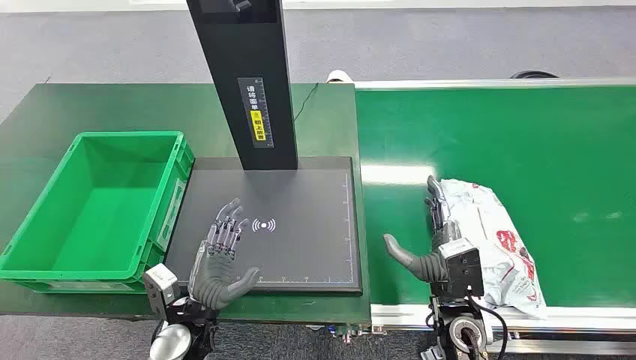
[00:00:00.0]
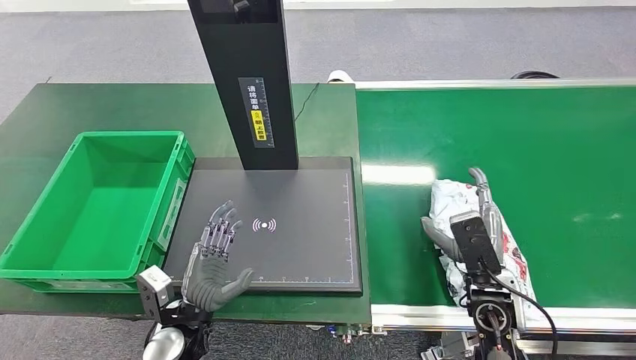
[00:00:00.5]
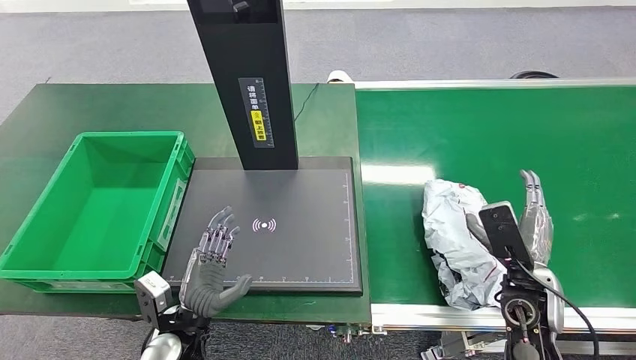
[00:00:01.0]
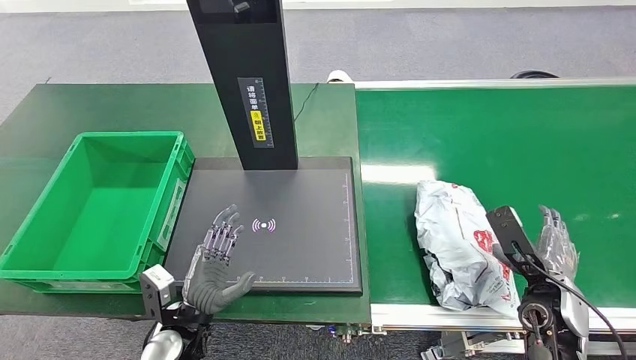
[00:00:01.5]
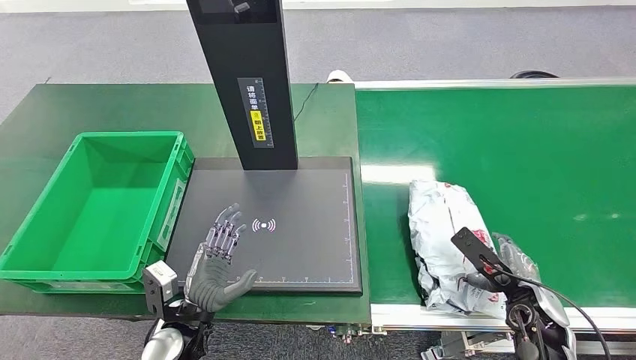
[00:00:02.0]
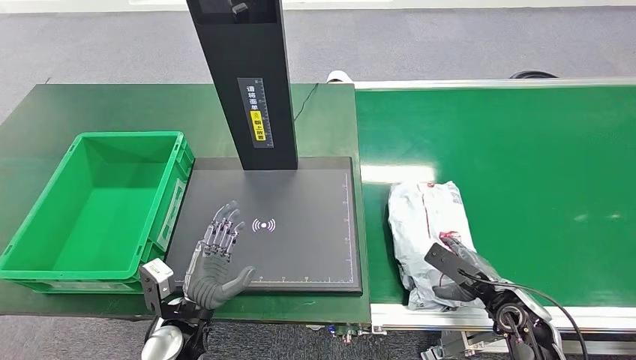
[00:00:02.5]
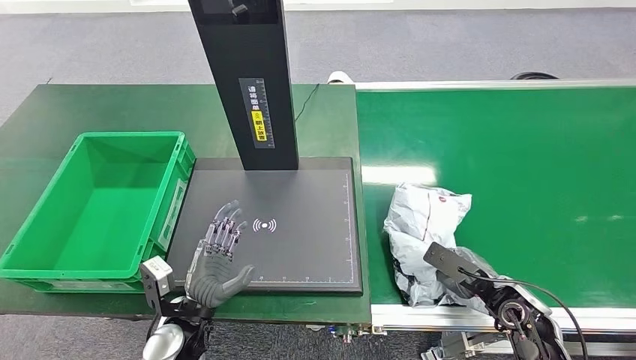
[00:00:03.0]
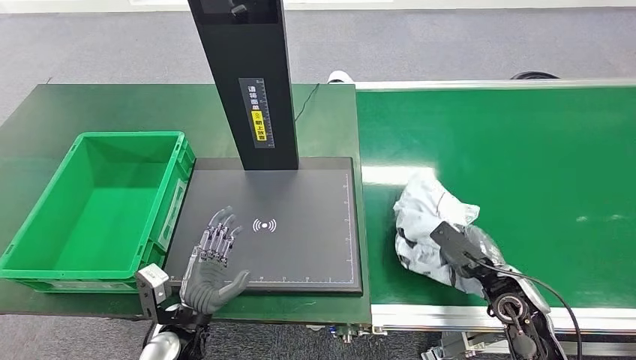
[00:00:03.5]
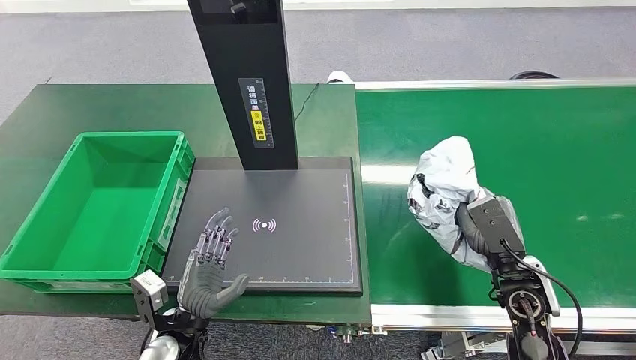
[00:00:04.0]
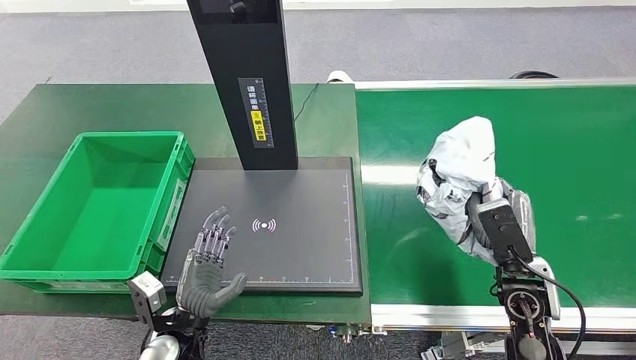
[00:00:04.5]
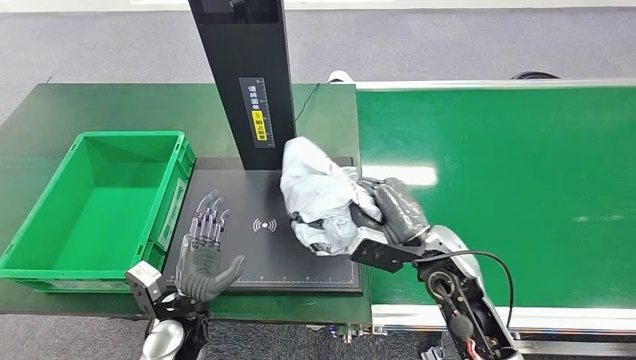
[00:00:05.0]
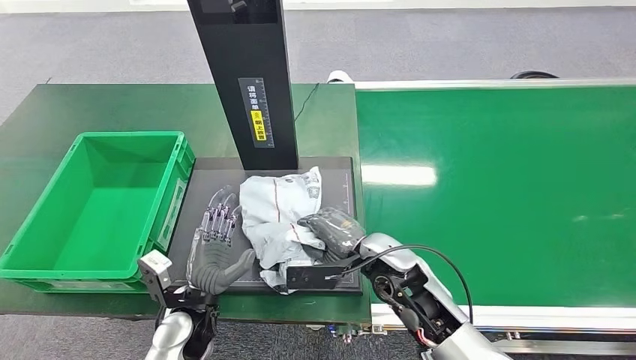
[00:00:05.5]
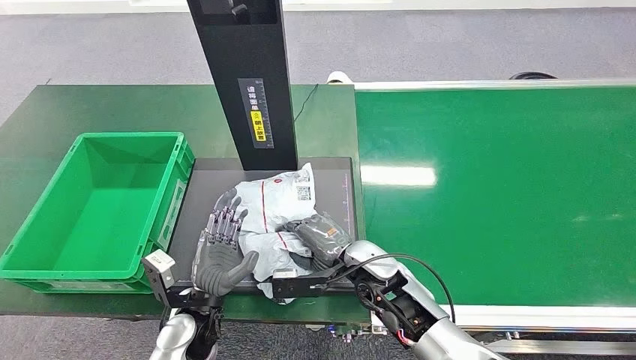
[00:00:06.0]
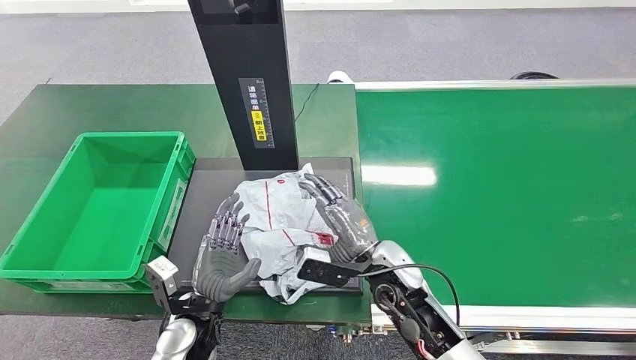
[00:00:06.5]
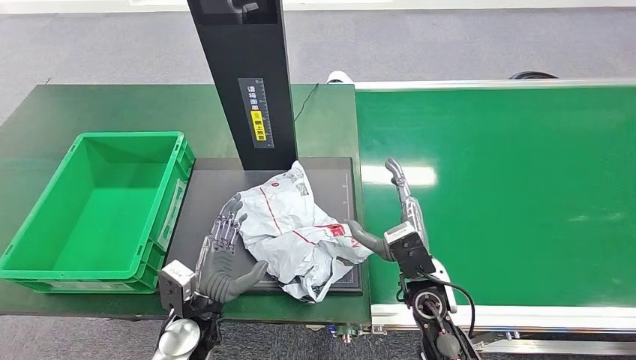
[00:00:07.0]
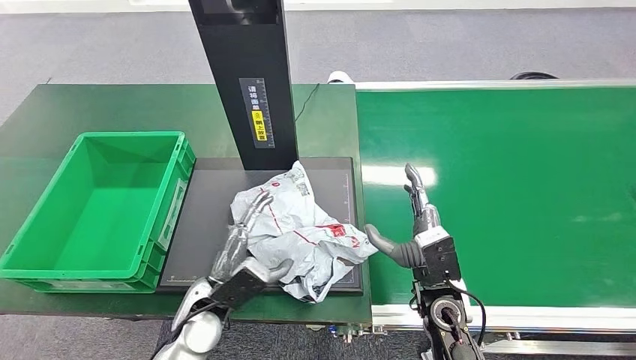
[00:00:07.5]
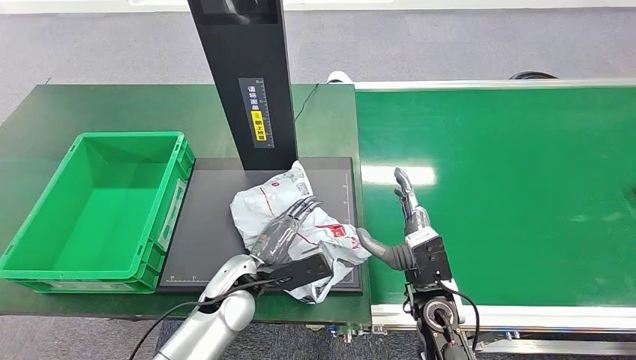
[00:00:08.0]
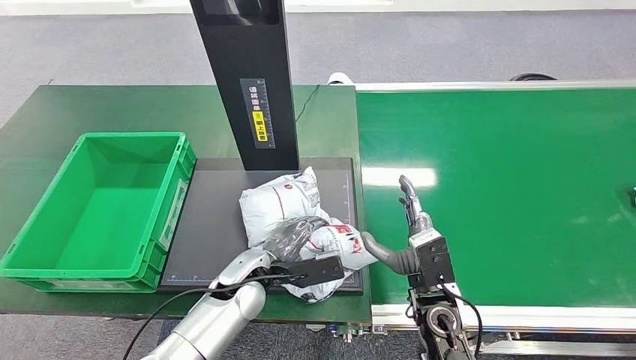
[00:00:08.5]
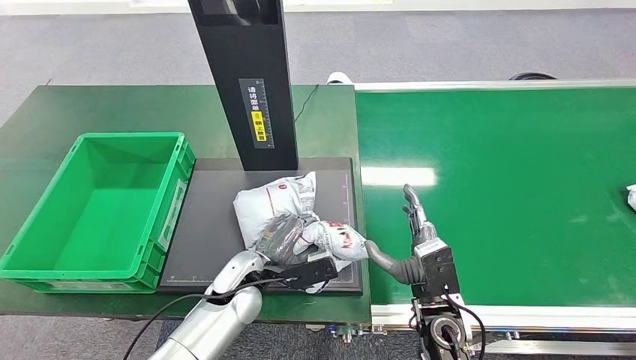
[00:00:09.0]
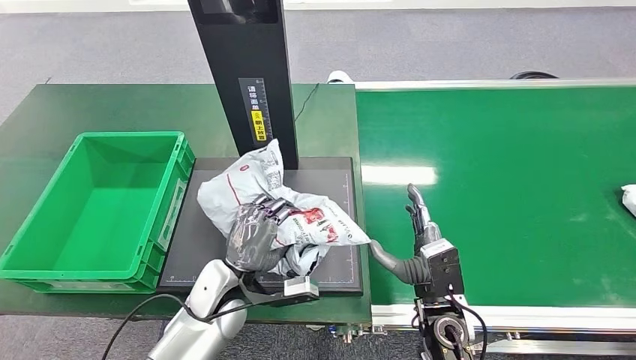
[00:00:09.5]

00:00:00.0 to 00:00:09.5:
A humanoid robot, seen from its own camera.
Step, 00:00:00.0 to 00:00:04.0: Pick up the package from the conveyor belt.
Step, 00:00:04.5 to 00:00:07.0: Place the package onto the inbound machine.
00:00:02.0 to 00:00:04.0: The right hand heads upward, covering about 5 cm.
00:00:04.0 to 00:00:05.5: The right hand moves to the left, approximately 20 cm.
00:00:05.5 to 00:00:07.5: The right hand is displaced to the right and backward by approximately 10 cm.

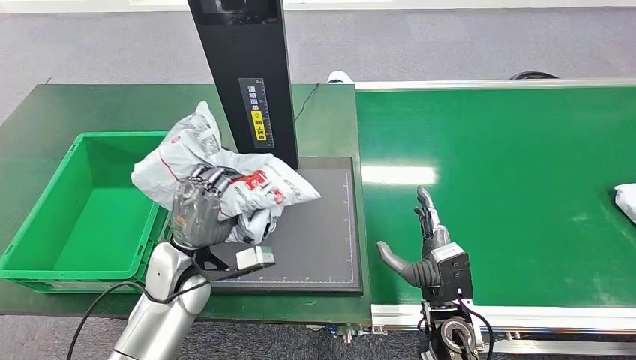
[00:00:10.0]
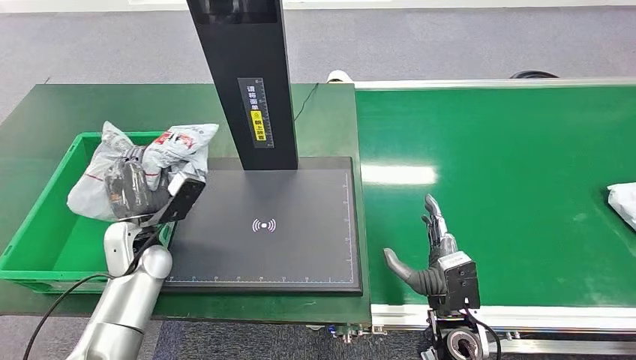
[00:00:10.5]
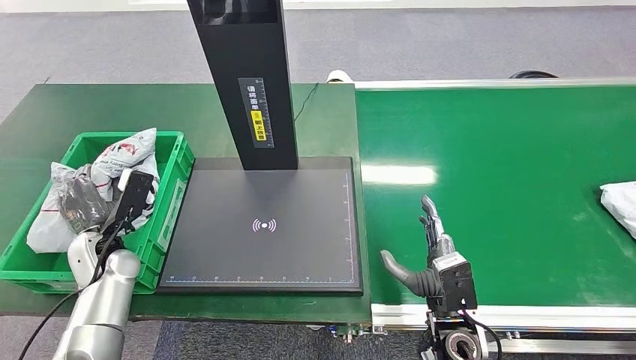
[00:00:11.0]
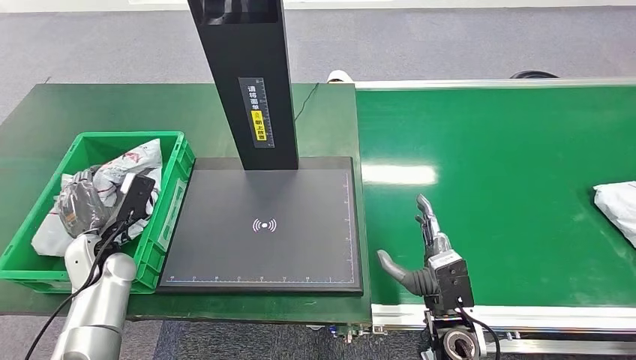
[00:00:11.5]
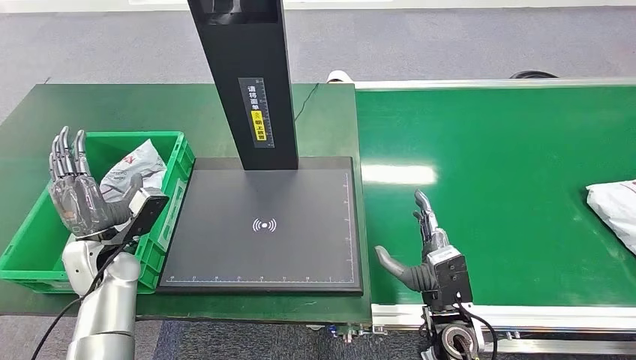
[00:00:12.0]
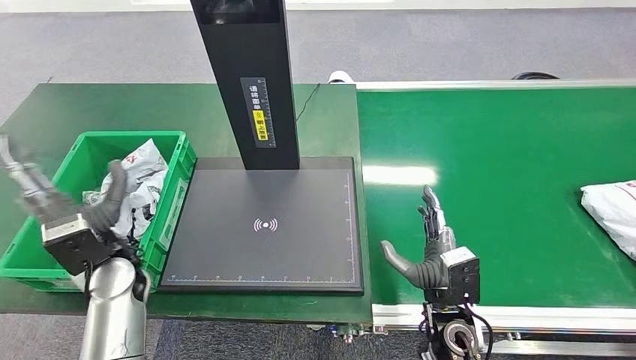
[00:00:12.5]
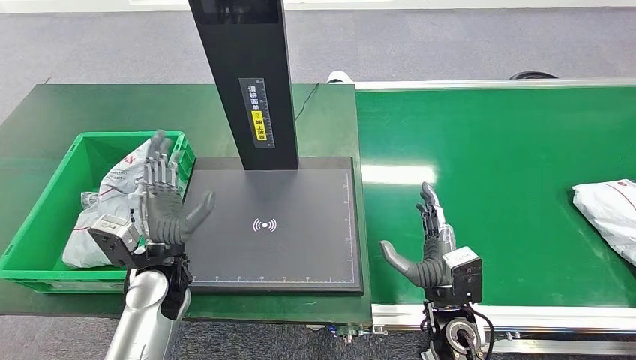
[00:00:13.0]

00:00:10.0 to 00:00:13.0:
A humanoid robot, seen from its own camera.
Step, 00:00:10.5 to 00:00:13.0: Place the package into the parcel locker.
00:00:10.0 to 00:00:11.5: The left hand is displaced to the left by approximately 15 cm.
00:00:11.5 to 00:00:13.0: The left hand moves to the right, roughly 15 cm.
